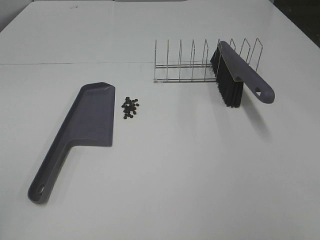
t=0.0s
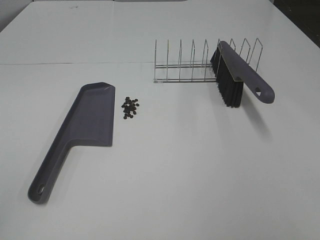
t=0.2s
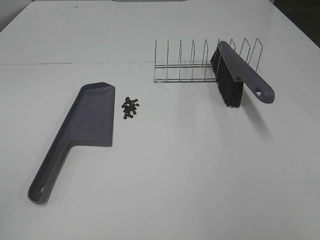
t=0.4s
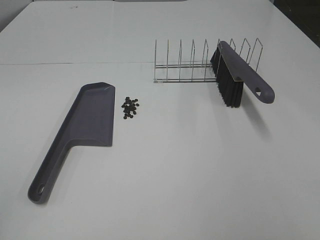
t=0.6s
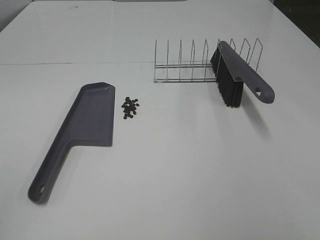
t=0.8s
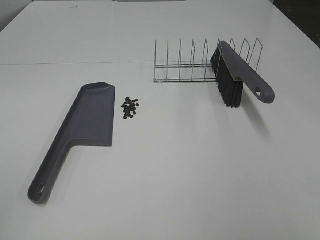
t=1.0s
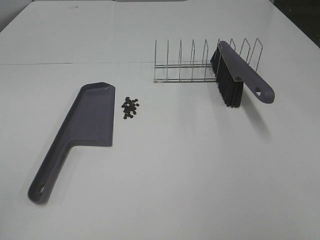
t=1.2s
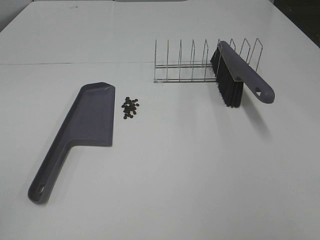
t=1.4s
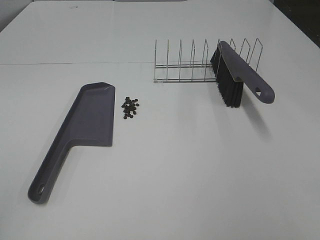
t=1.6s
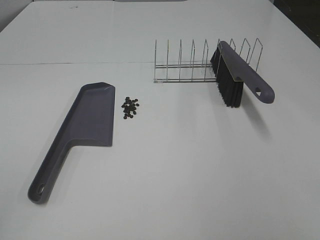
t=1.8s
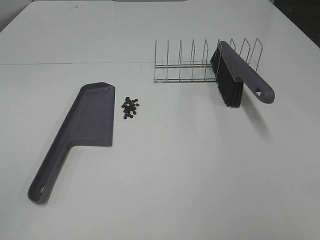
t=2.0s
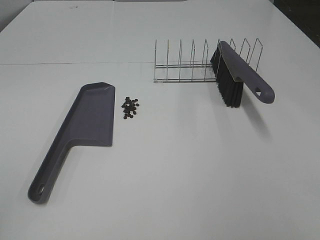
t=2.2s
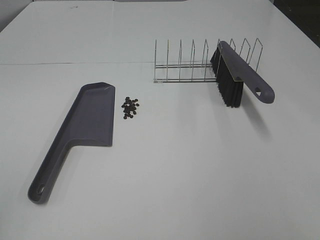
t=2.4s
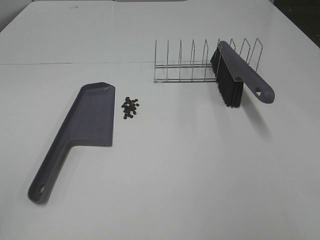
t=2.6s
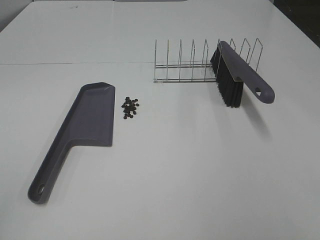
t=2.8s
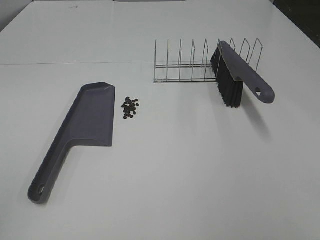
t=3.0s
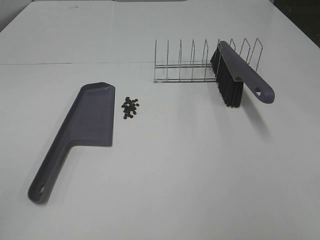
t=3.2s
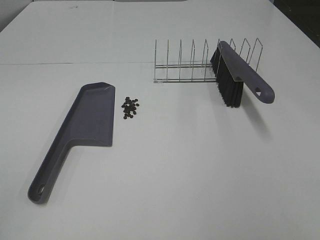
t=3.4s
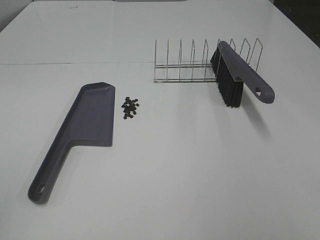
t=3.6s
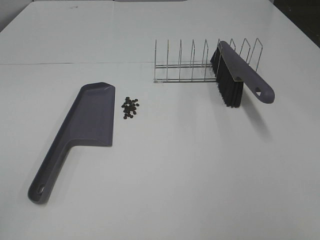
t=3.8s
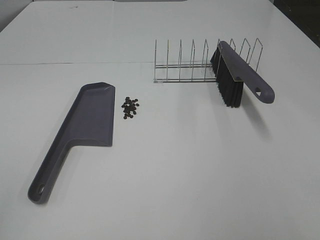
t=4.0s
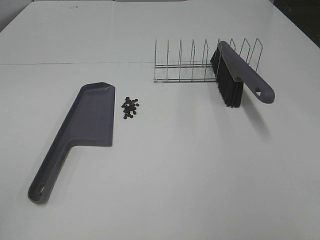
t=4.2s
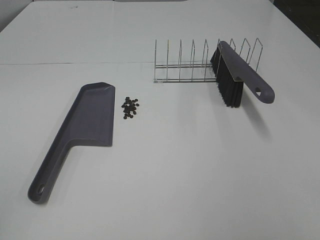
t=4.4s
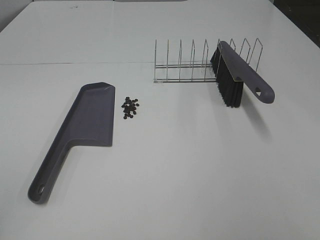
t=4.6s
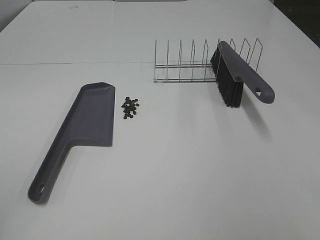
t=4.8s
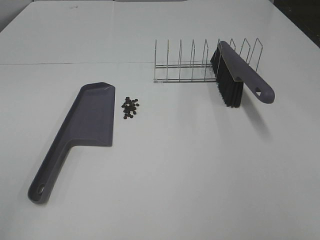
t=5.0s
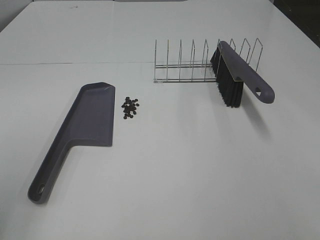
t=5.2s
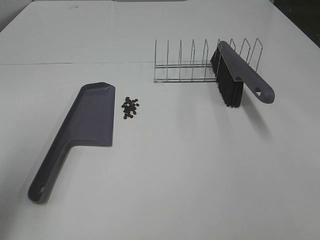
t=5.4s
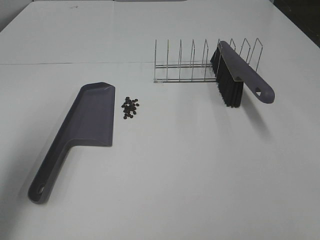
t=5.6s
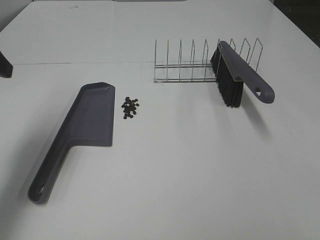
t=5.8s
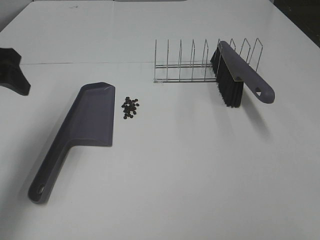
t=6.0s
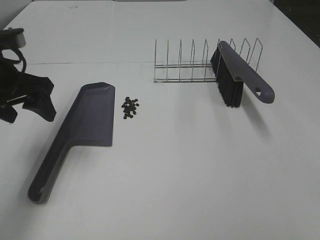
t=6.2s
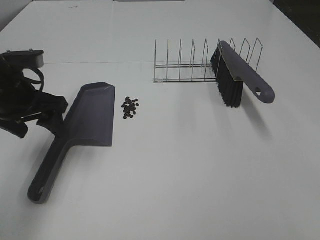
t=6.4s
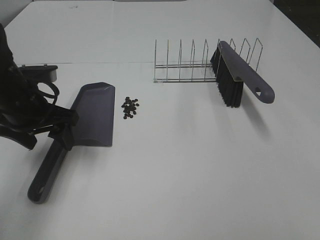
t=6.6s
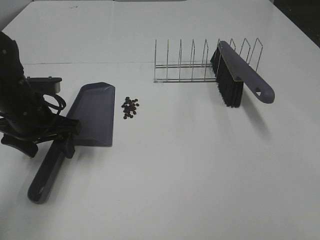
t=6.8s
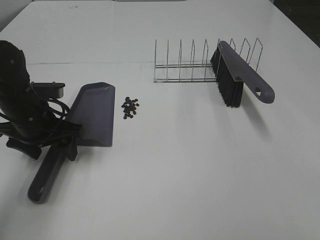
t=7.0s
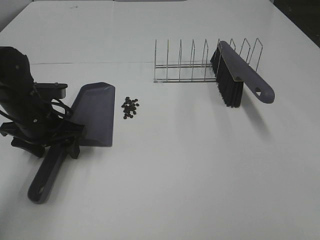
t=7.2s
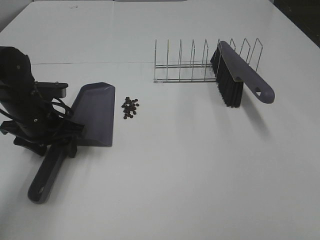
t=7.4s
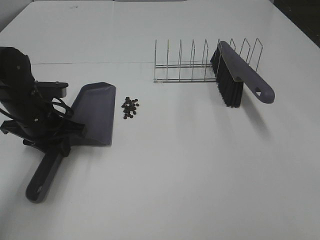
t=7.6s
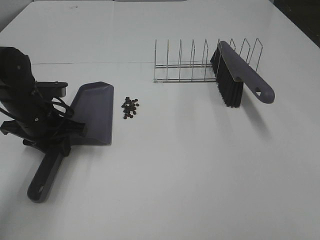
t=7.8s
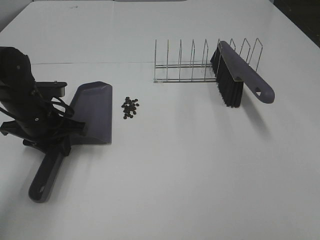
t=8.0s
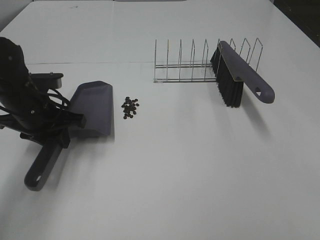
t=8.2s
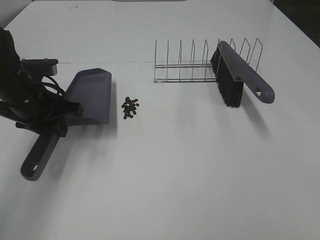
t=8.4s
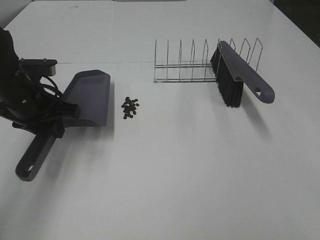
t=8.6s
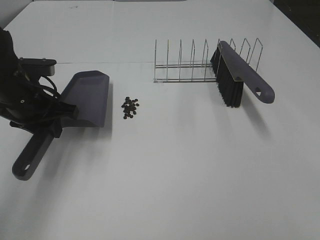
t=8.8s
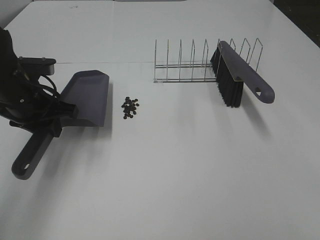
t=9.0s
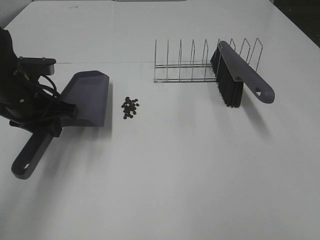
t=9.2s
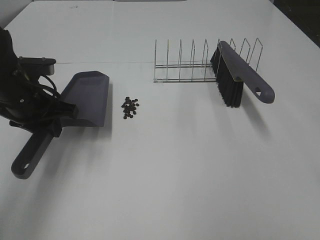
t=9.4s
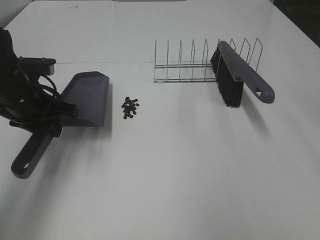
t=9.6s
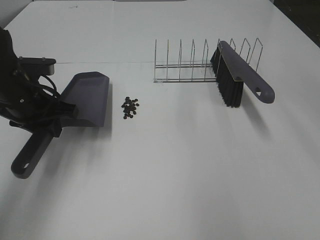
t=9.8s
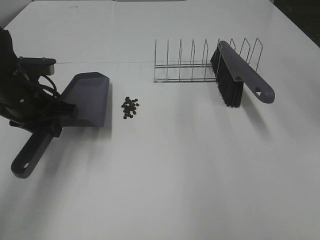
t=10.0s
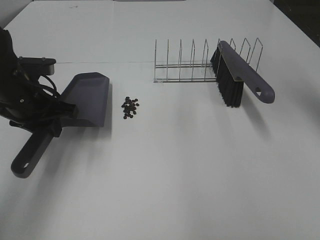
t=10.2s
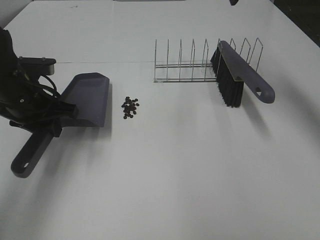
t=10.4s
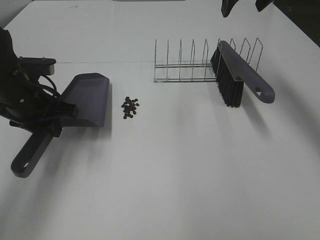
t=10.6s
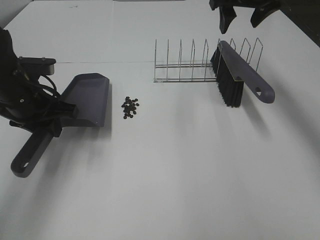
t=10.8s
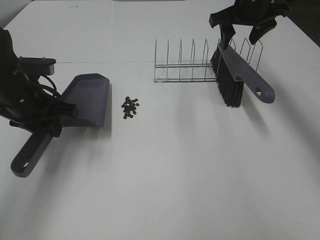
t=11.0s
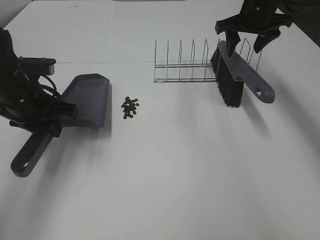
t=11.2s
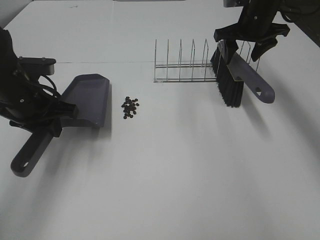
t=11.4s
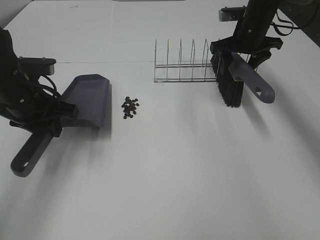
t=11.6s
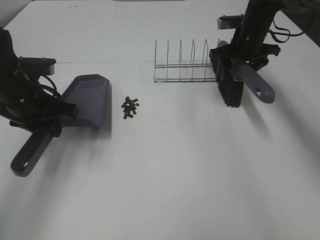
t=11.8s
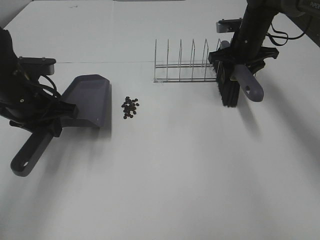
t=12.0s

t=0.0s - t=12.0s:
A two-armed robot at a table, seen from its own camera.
Task of the whole recording: Sweep Coffee Bean.
Step, t=0.0s - t=7.4s: Left hand: grab the dustpan.
Step, t=9.0s - t=12.0s: Right hand:grab the broom.
t=0.0s - t=4.4s: The two grippers keep their place.
t=4.4s - t=6.0s: The left gripper heads forward, covering roughly 30 cm.
t=6.0s - t=7.6s: The left gripper travels downward by some 15 cm, and closes up.
t=7.6s - t=9.0s: The left gripper is displaced upward by some 5 cm.
t=9.0s - t=10.4s: The right gripper travels forward by about 40 cm.
t=10.4s - t=12.0s: The right gripper is displaced downward by about 20 cm, and closes its fingers.

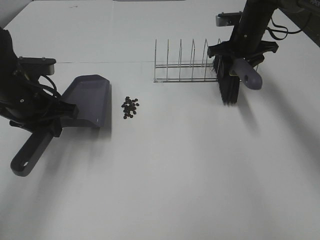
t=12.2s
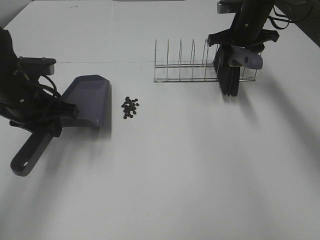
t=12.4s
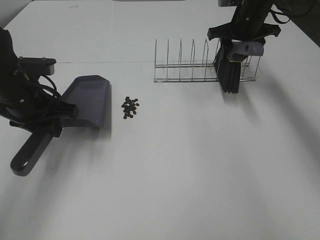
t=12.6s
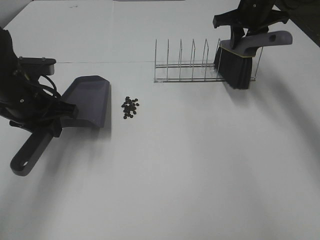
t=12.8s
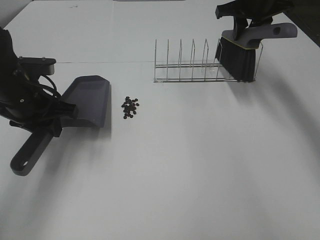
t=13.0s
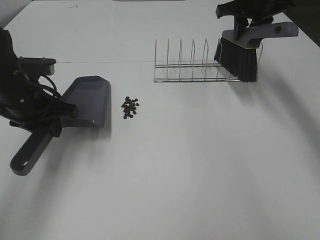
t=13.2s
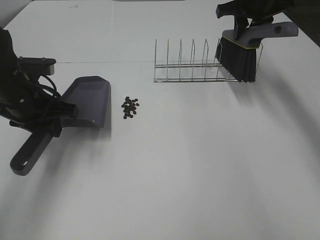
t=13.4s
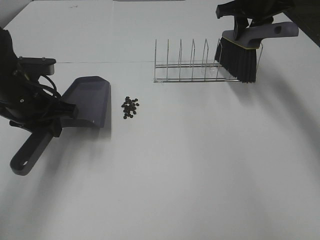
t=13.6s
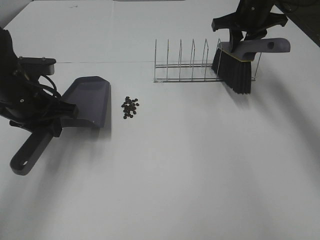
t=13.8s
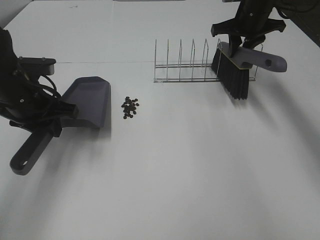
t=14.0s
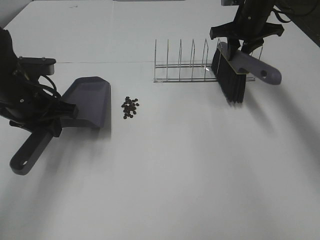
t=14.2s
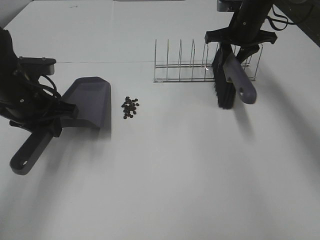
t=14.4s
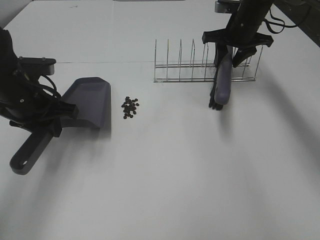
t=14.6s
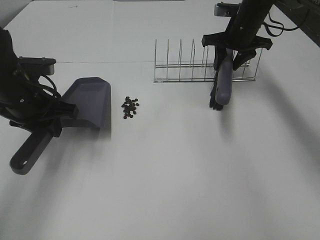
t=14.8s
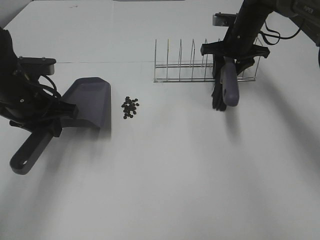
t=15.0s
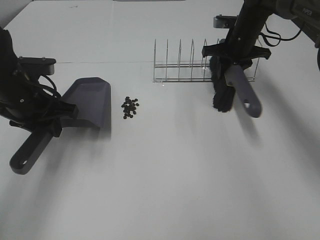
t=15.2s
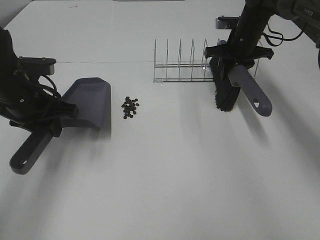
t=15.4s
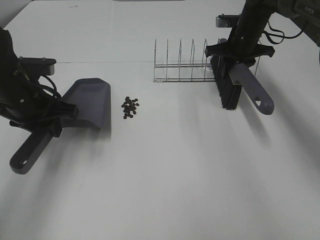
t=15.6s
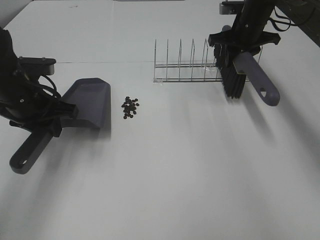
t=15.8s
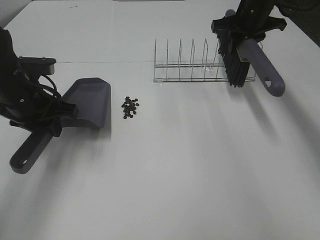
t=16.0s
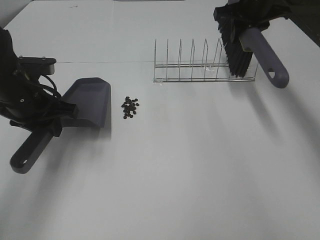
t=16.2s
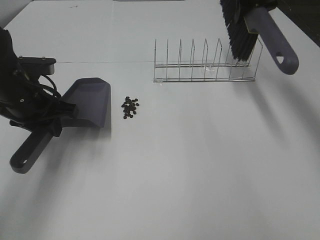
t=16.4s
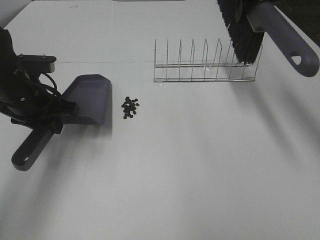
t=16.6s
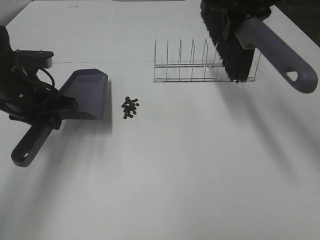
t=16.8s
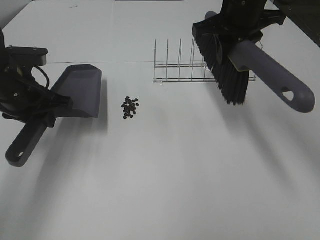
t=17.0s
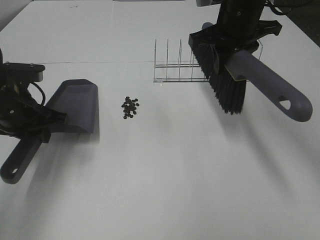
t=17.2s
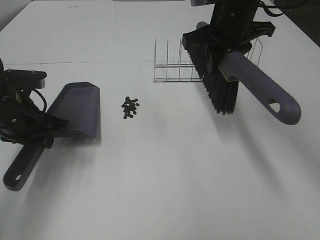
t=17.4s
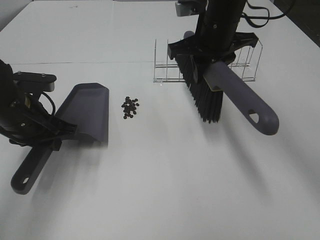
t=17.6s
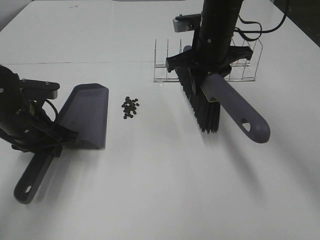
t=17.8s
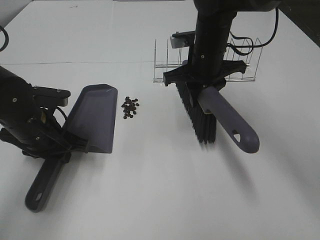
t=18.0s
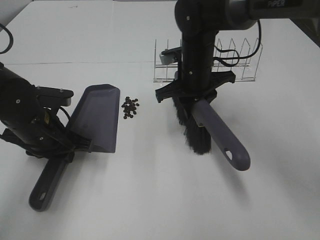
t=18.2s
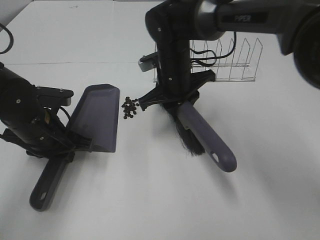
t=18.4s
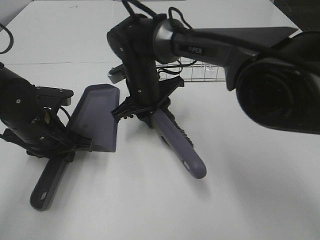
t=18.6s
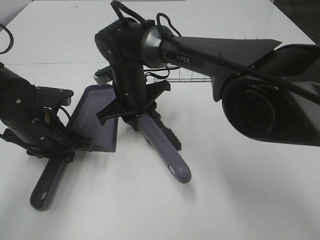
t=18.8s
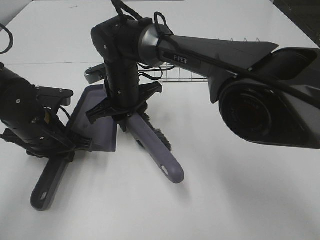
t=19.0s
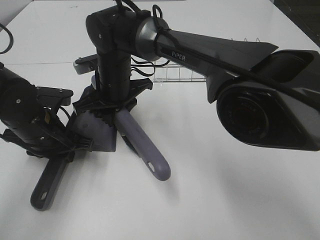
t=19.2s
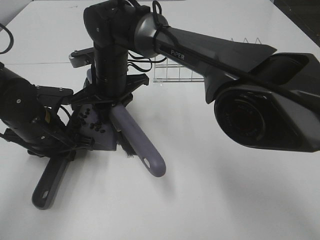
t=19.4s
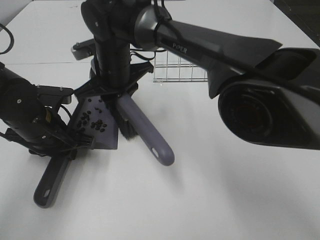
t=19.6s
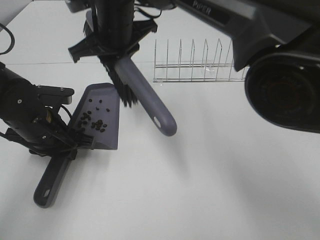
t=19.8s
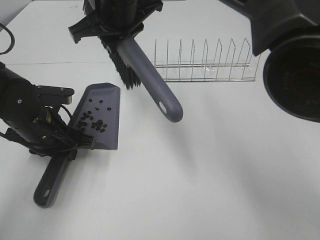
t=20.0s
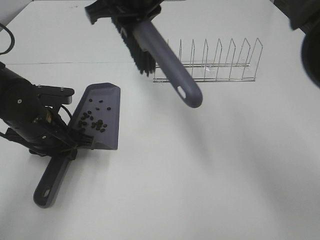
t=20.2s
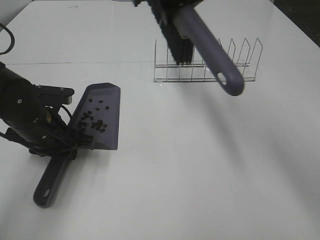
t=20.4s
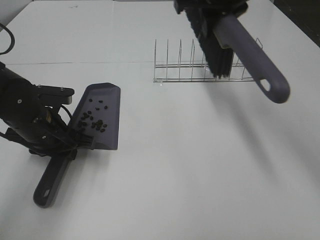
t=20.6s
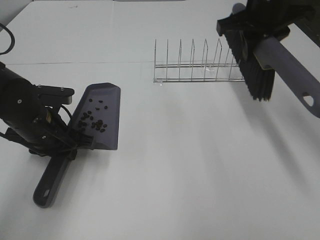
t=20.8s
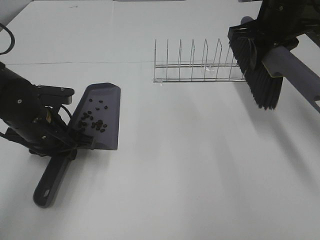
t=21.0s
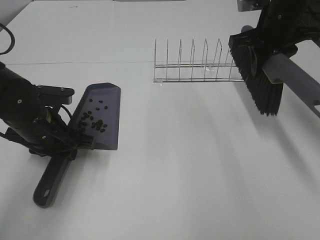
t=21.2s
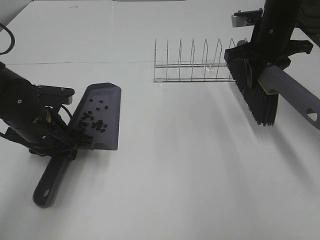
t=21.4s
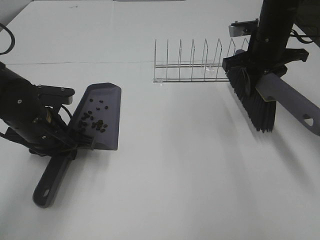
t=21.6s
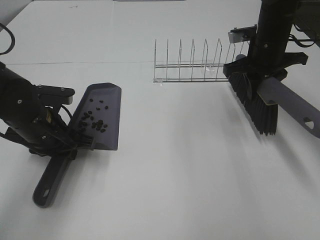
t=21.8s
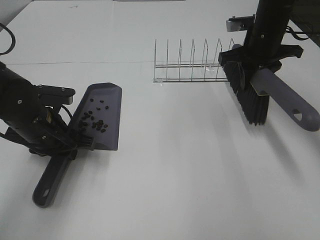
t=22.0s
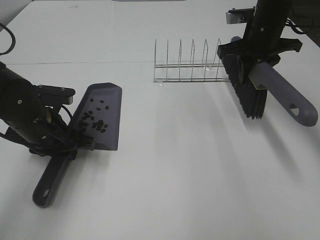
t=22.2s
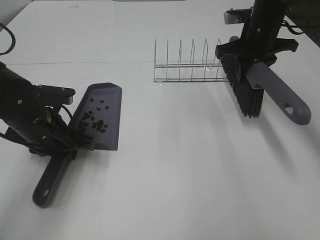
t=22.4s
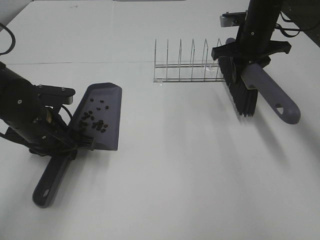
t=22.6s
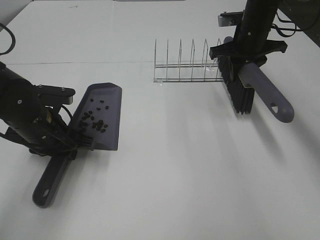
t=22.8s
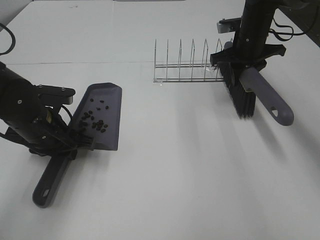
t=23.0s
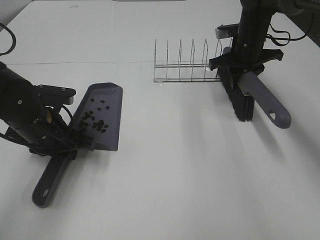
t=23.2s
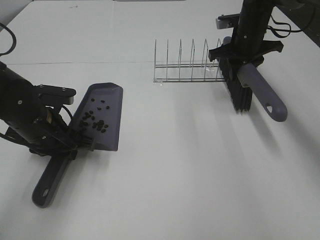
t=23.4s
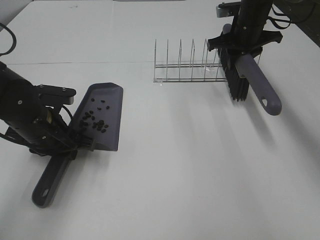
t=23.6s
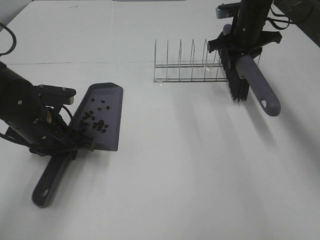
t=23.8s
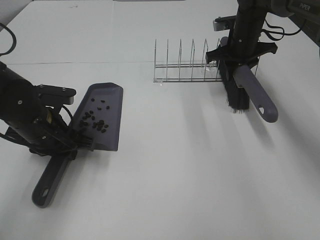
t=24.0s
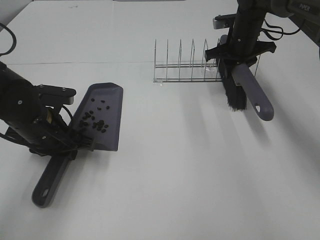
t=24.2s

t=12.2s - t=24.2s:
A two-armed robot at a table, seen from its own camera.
Task of the whole recording: Sweep Coffee Bean.
Step, t=12.2s - t=18.0s: Left hand: move the dustpan to the left side of the coffee beans.
Step, t=12.2s - t=19.6s: Right hand:sweep the coffee beans into the dustpan.
t=12.2s - t=13.8s: The right gripper closes its fingers.
t=13.8s - t=15.2s: The right gripper goes roughly 5 cm downward.
t=15.2s - t=16.6s: The right gripper is displaced upward and backward by roughly 20 cm.
t=16.6s - t=18.2s: The left gripper moves downward, roughly 5 cm, while the right gripper moves downward and to the left, about 20 cm.
t=18.2s - t=19.8s: The right gripper goes approximately 15 cm to the left and upward.
t=19.8s - t=21.2s: The right gripper is displaced to the right by some 30 cm.
t=21.2s - t=22.6s: The right gripper heads forward, covering about 5 cm.
t=22.6s - t=24.2s: The right gripper shifts by approximately 5 cm.
